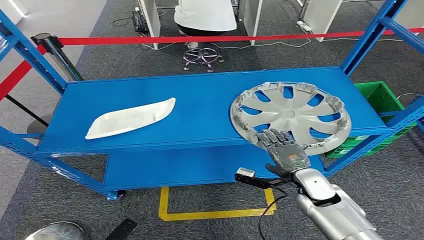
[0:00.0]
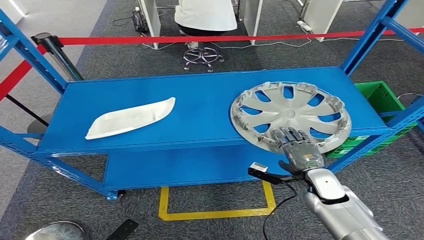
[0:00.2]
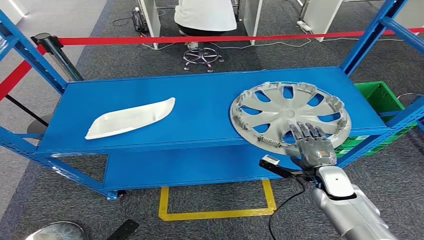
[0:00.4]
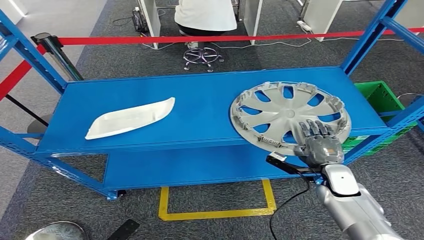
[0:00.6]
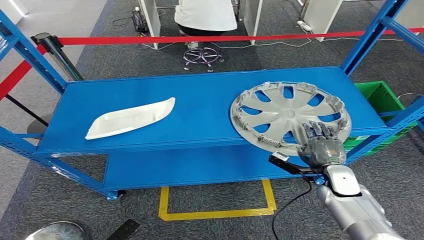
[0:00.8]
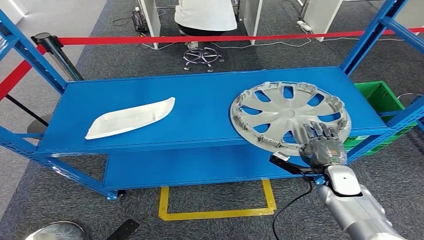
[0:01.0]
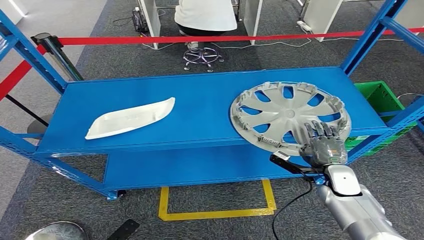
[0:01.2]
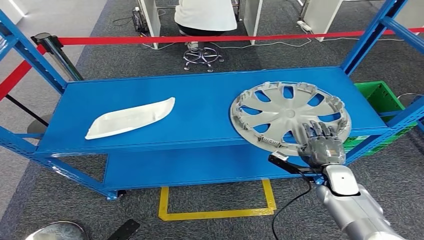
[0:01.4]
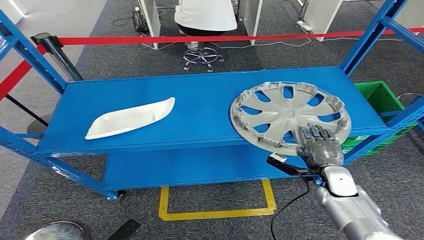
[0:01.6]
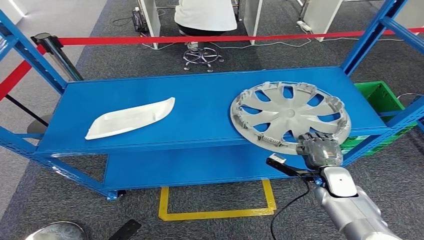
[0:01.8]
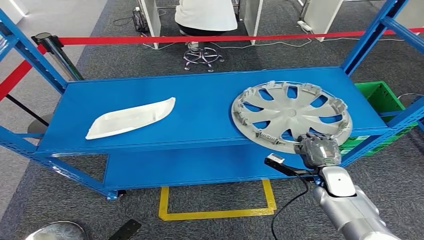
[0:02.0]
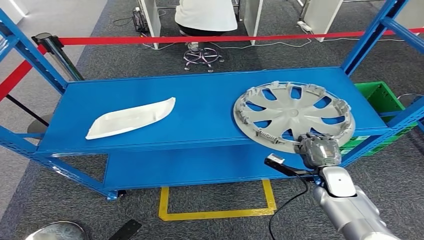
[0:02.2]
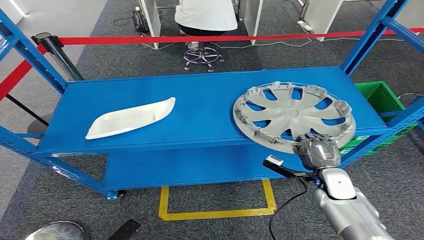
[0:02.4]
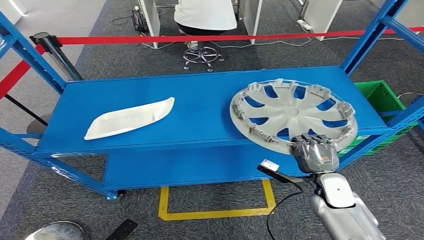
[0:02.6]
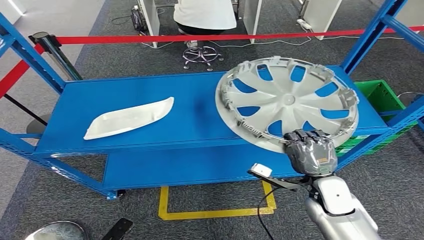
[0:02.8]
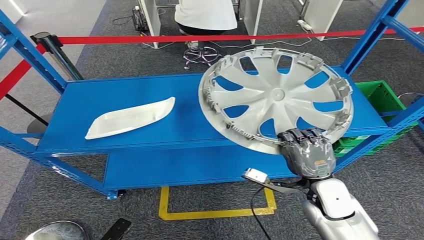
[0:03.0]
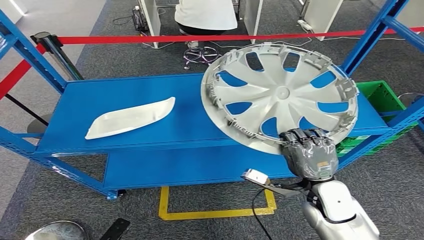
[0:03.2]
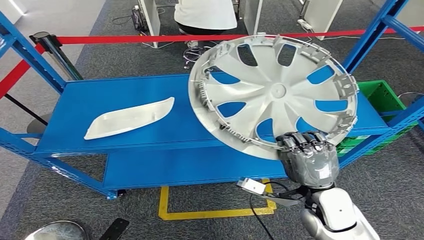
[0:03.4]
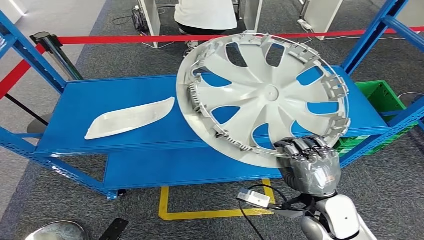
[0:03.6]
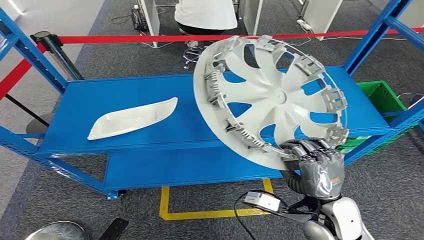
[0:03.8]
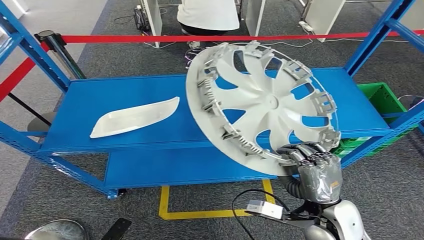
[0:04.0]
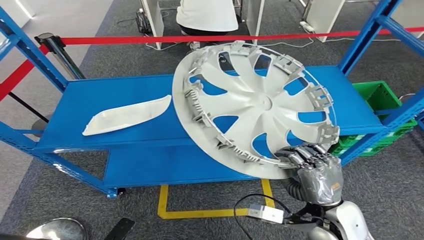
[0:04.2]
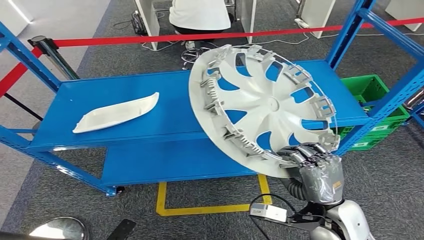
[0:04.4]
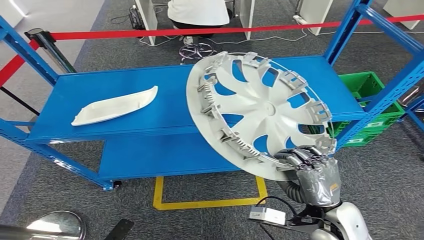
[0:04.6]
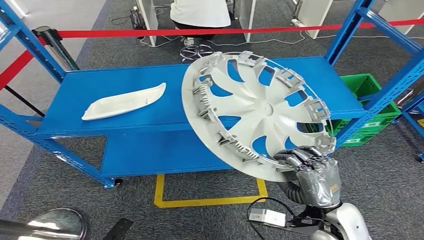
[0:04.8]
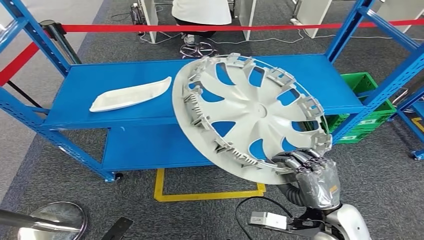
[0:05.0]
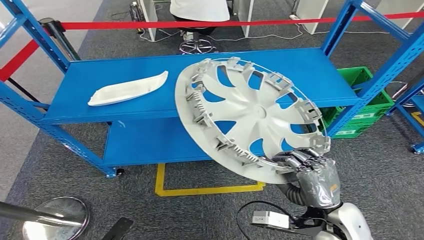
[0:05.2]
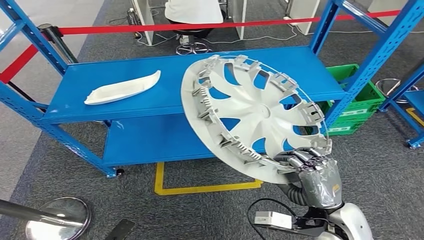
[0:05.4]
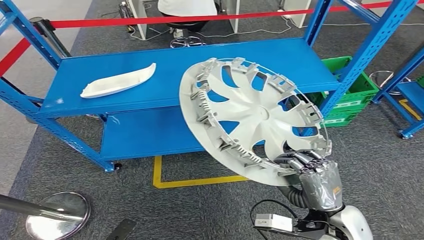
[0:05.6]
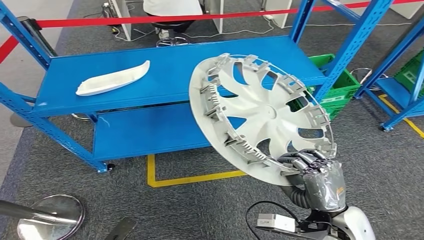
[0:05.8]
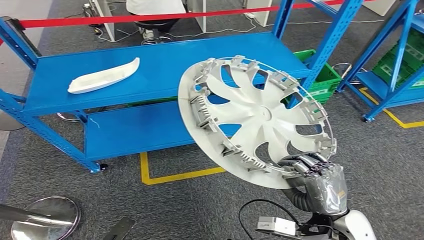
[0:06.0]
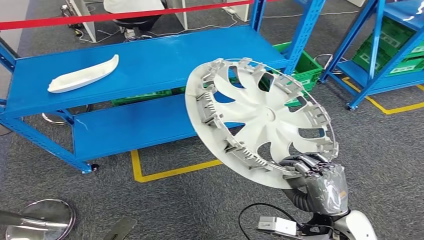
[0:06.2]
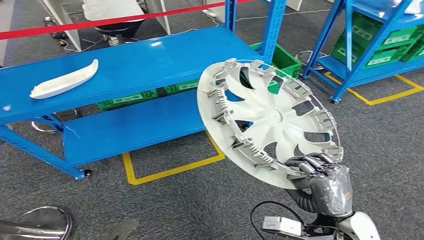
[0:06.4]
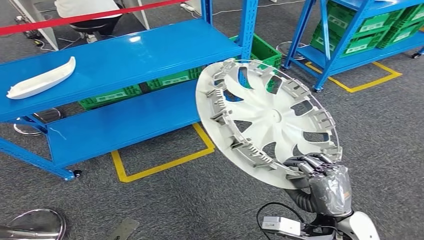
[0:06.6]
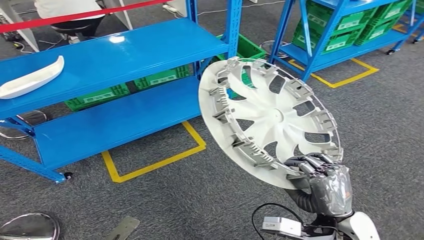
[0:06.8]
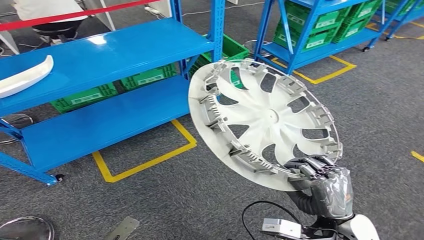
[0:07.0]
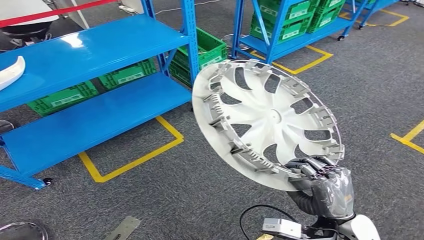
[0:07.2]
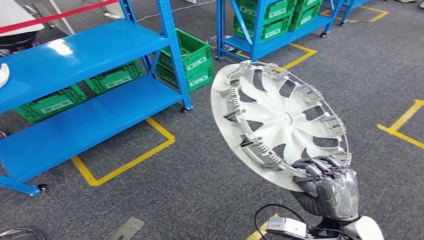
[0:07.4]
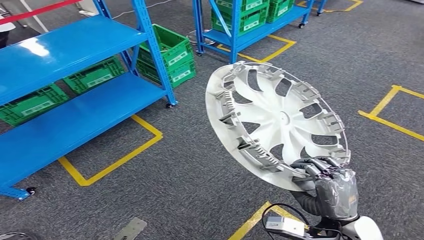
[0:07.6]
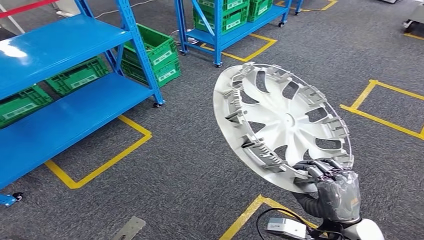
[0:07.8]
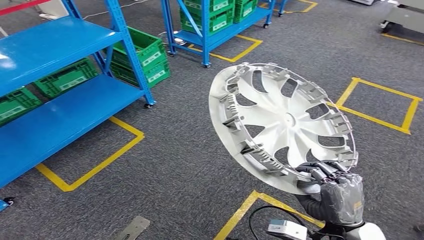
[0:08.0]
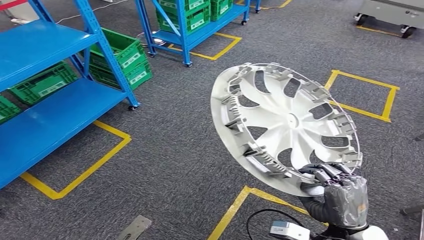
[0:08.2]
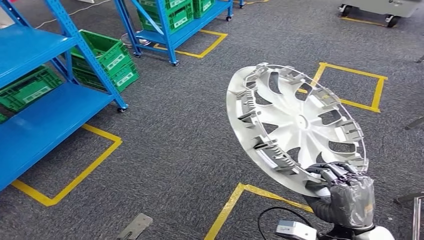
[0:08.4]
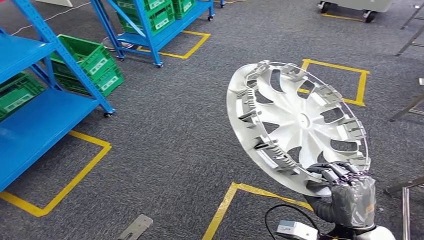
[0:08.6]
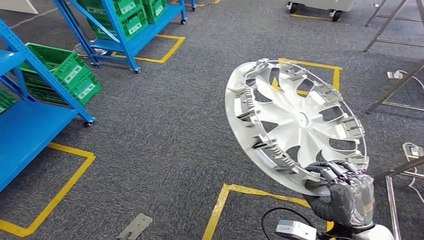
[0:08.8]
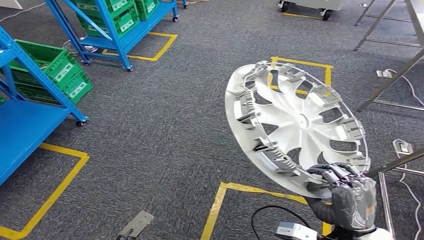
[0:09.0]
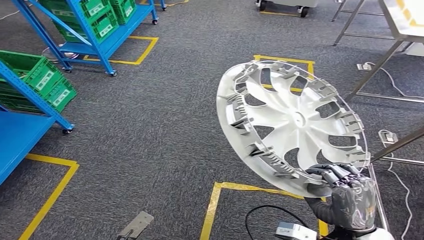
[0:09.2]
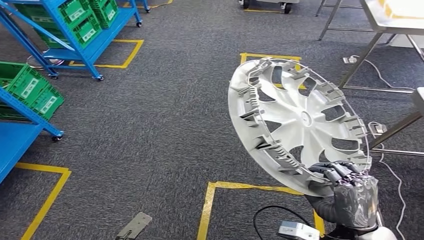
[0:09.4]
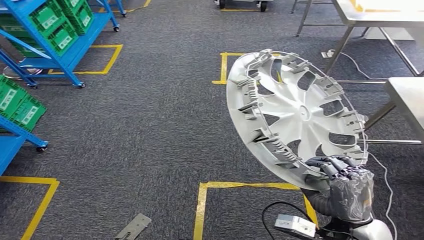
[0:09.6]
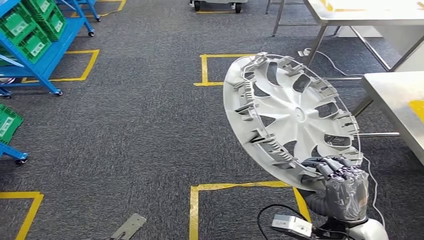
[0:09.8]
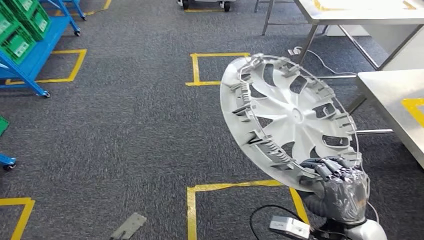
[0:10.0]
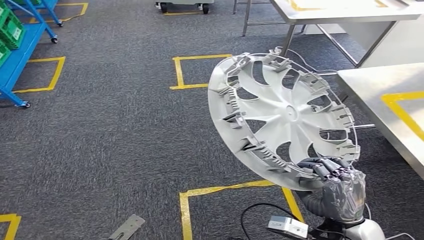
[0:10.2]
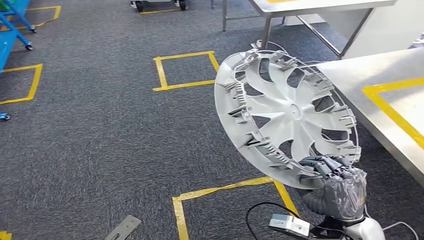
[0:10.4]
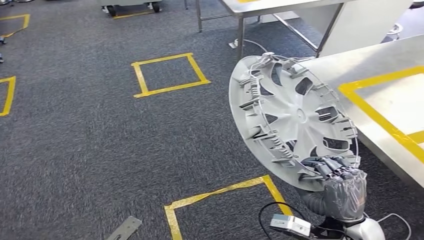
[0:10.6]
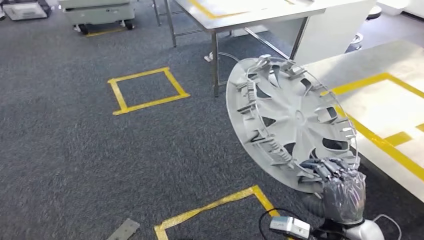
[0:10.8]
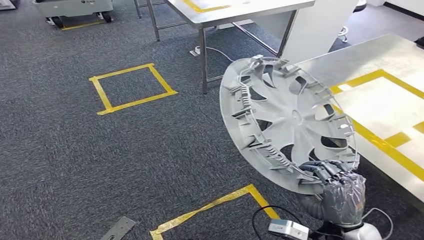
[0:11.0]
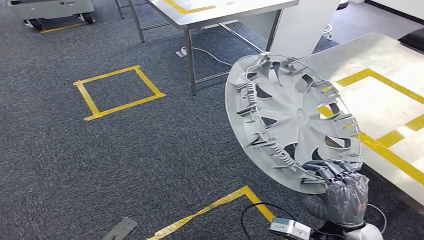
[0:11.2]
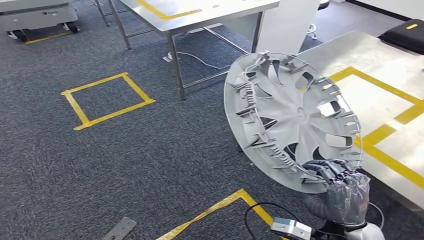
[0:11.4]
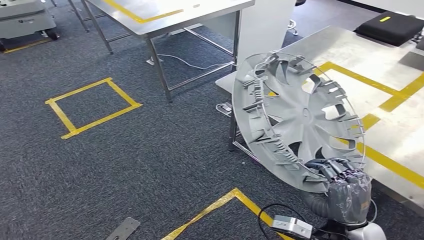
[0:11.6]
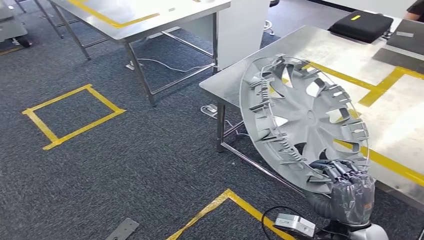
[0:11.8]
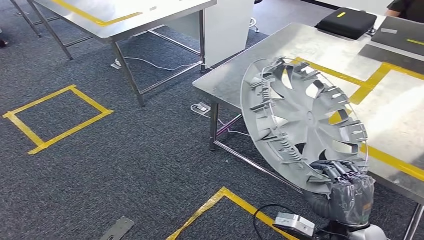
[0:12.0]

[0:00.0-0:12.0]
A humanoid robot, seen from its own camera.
Step, 0:00.0 to 0:05.0: Take small components from the rack.
0:01.6 to 0:03.0: The right hand heads upward and to the left, covering roughly 10 cm.

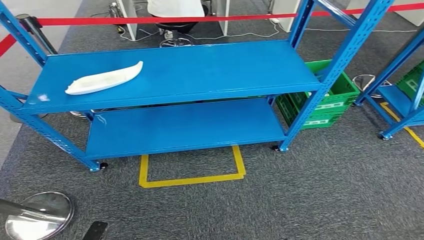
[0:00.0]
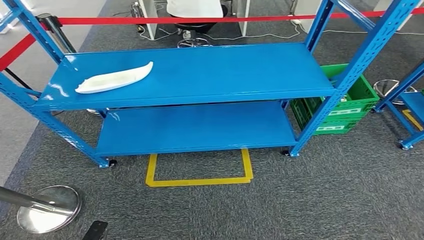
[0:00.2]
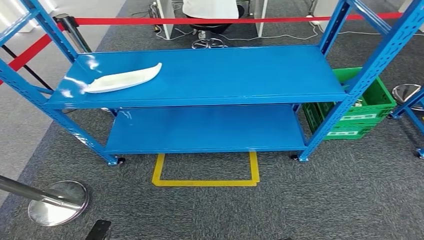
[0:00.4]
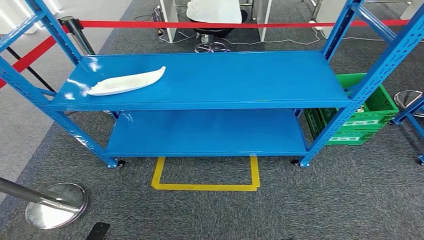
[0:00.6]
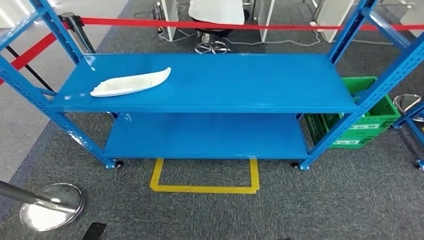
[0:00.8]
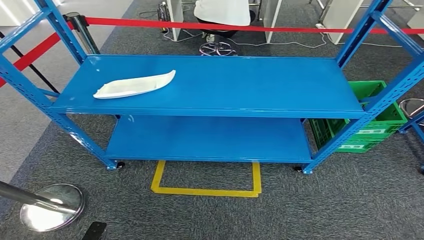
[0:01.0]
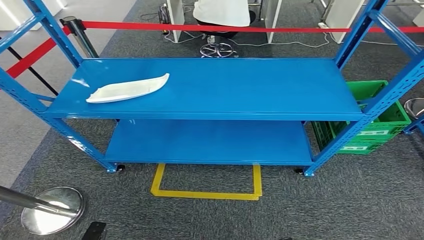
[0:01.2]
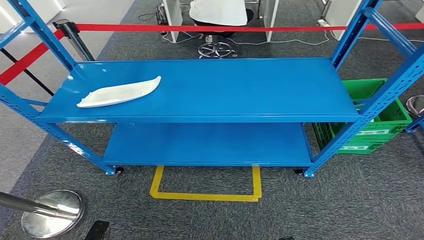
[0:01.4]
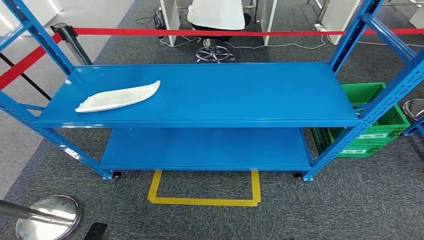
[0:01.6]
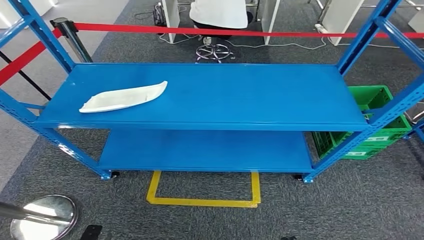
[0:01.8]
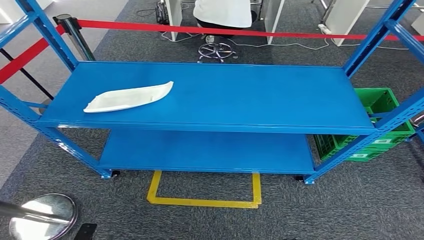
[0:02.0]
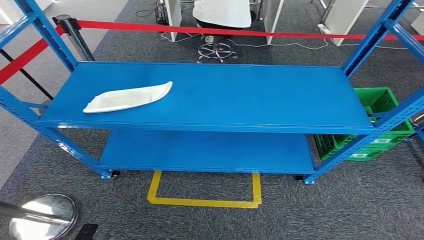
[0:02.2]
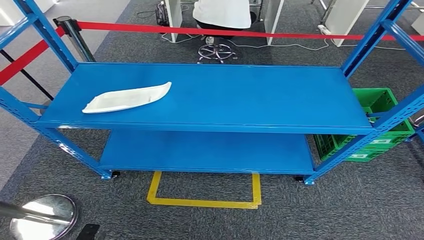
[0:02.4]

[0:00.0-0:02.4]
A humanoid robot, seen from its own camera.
Step, 0:00.0 to 0:02.4: Move to the initial position of the workbench.

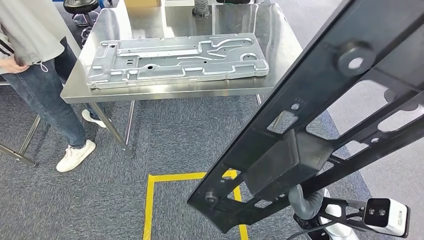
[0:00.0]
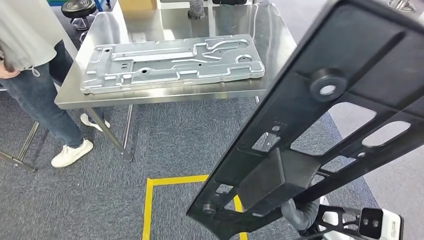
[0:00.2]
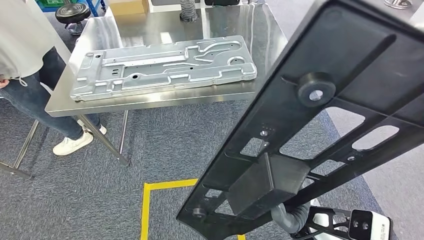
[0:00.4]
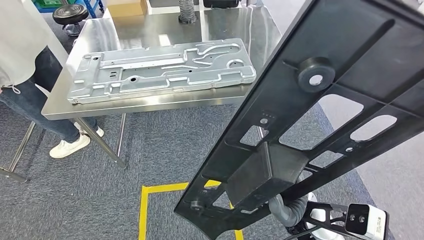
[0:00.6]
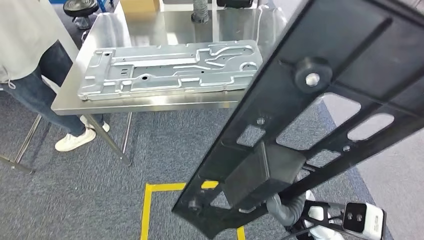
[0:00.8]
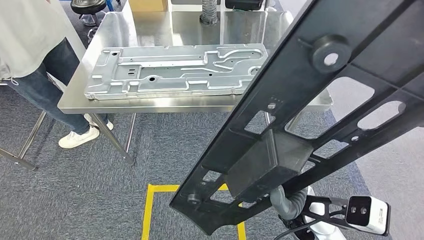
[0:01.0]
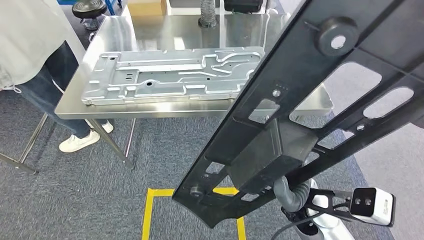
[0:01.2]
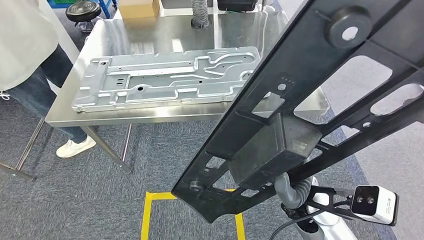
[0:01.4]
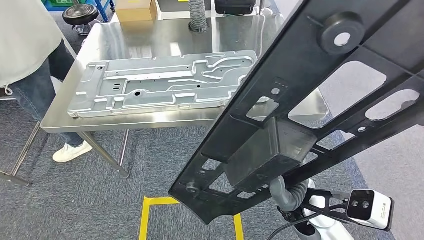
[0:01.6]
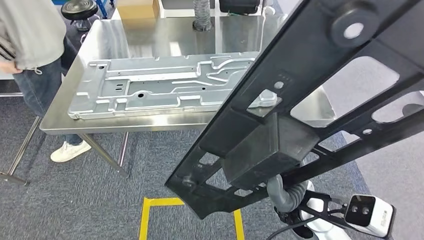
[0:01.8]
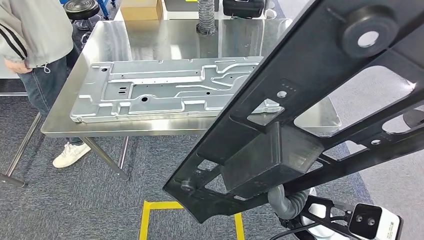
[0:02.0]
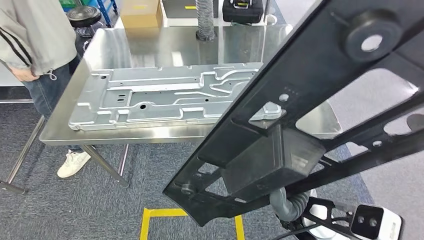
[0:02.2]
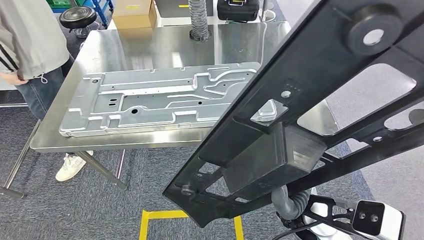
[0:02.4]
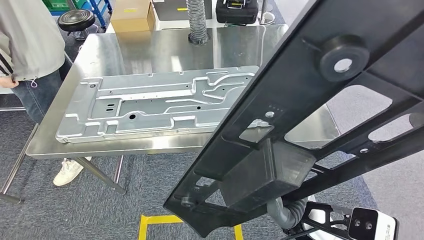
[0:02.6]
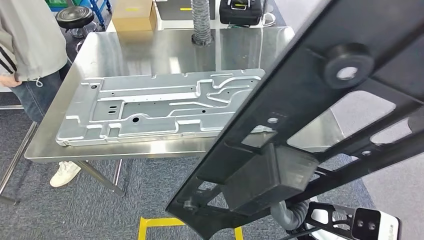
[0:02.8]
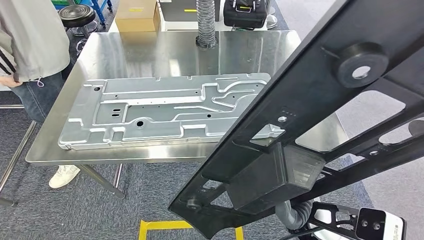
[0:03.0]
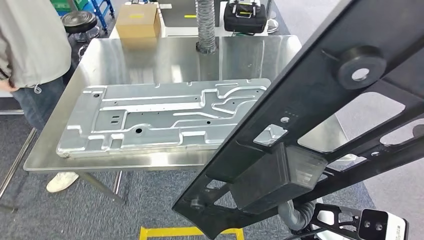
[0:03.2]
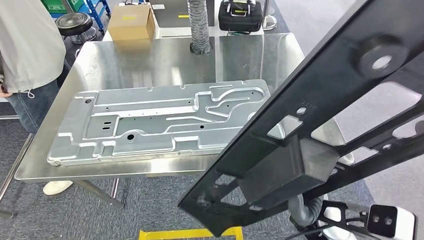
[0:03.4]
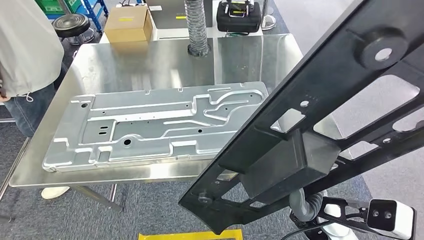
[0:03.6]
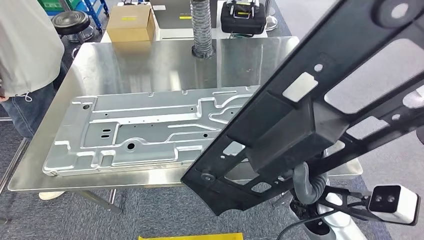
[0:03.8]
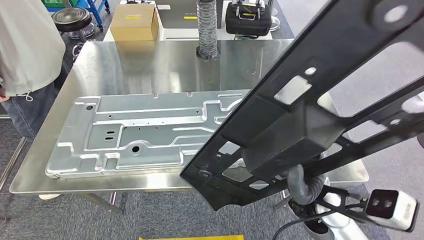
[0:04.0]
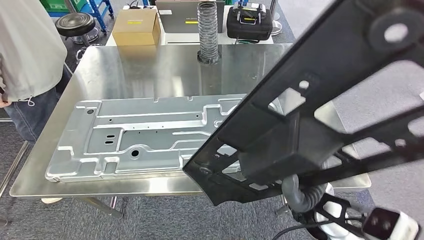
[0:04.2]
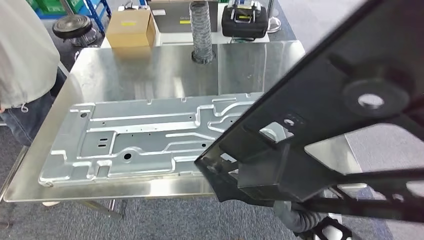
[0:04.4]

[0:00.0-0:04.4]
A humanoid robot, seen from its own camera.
Step, 0:00.0 to 0:04.0: Move the small parts to the workbench.
